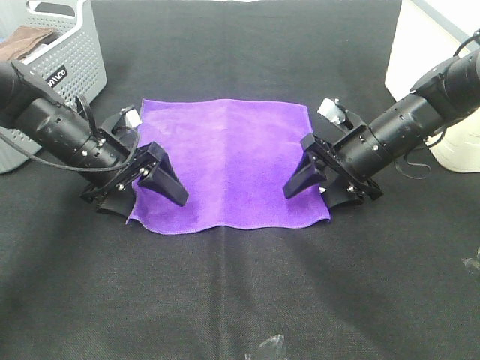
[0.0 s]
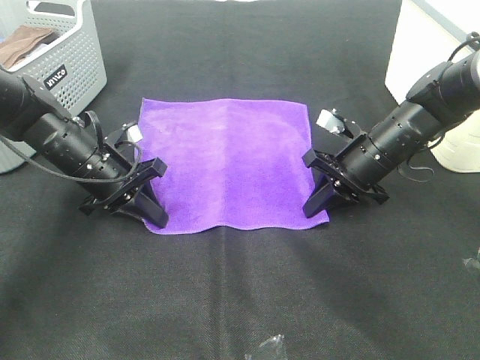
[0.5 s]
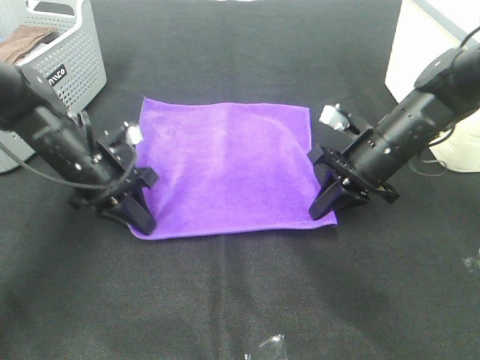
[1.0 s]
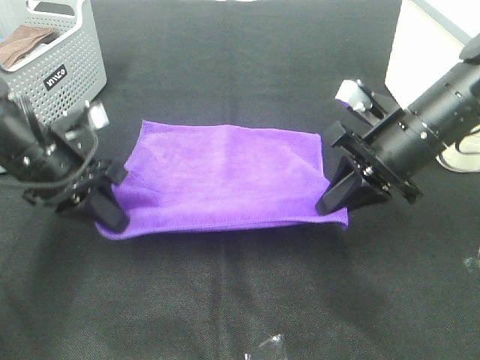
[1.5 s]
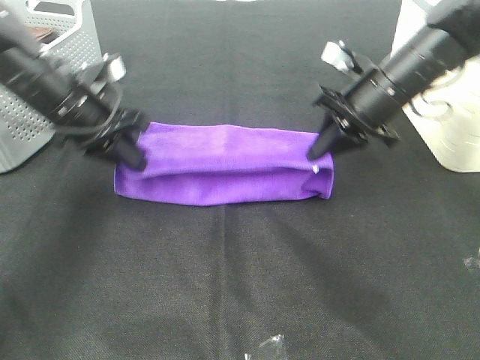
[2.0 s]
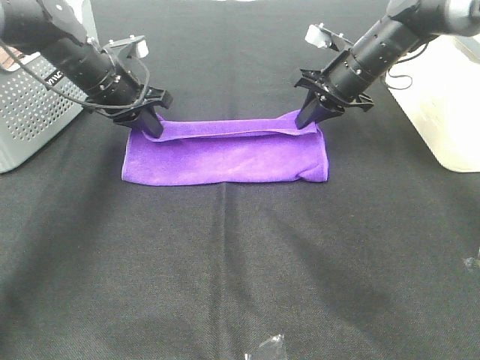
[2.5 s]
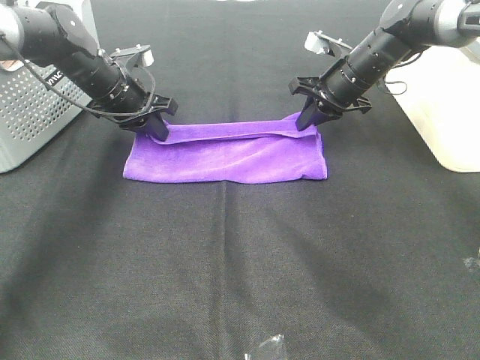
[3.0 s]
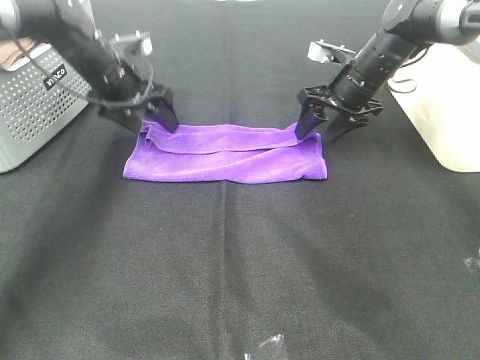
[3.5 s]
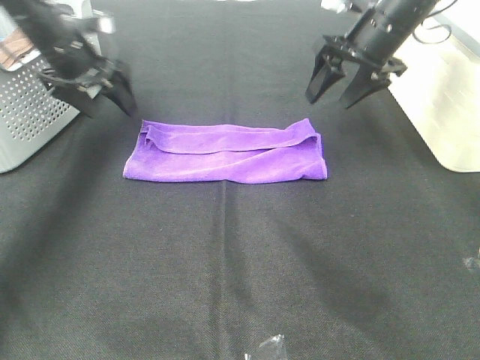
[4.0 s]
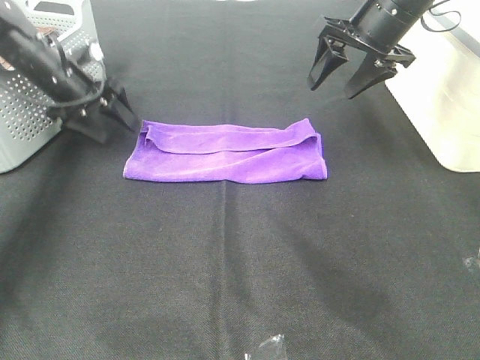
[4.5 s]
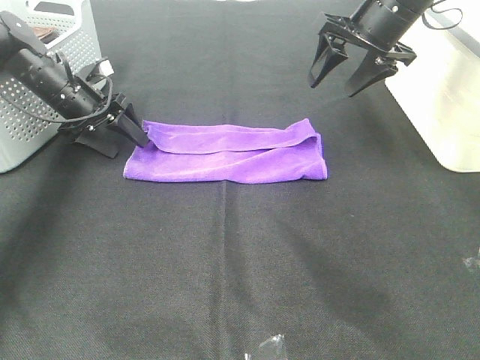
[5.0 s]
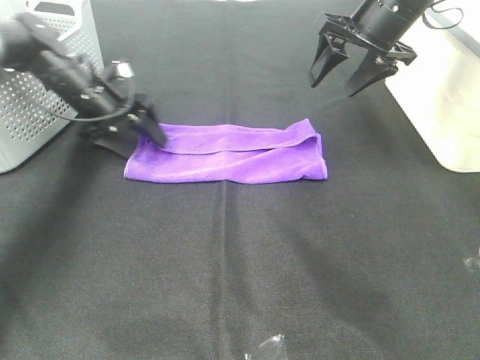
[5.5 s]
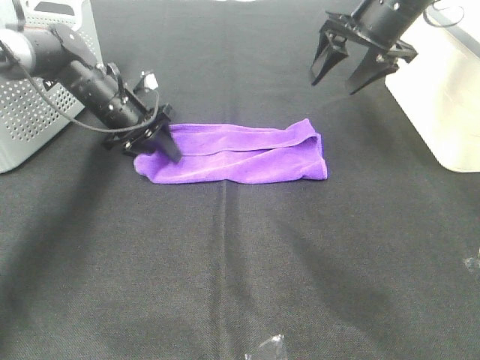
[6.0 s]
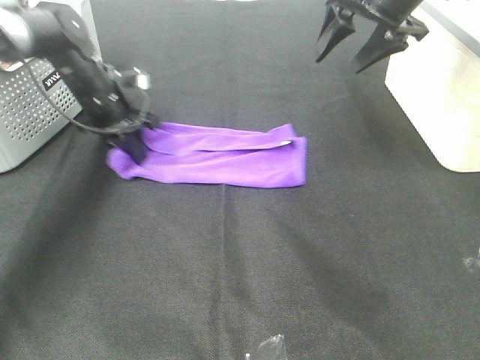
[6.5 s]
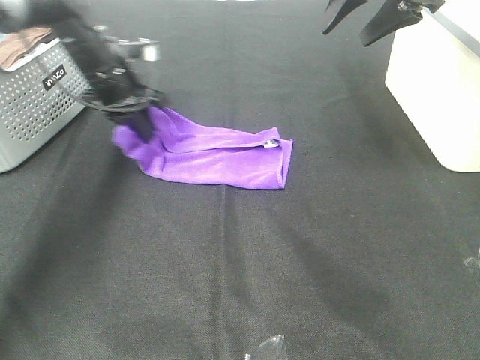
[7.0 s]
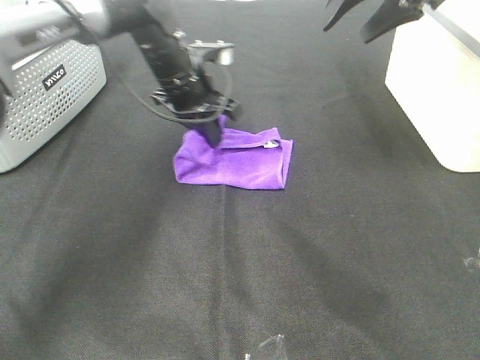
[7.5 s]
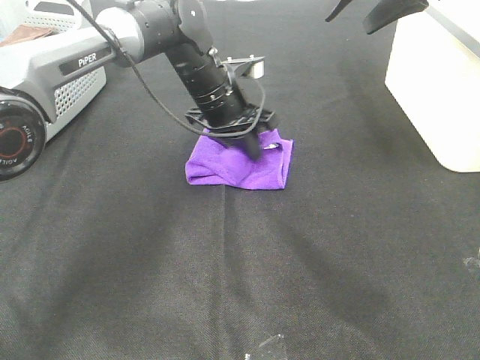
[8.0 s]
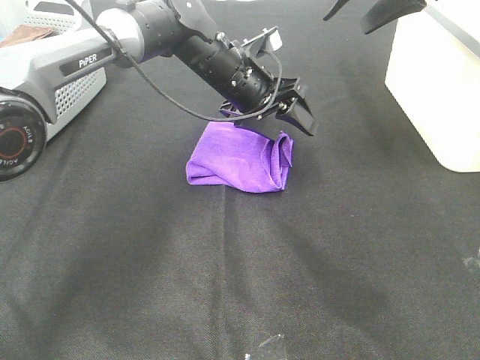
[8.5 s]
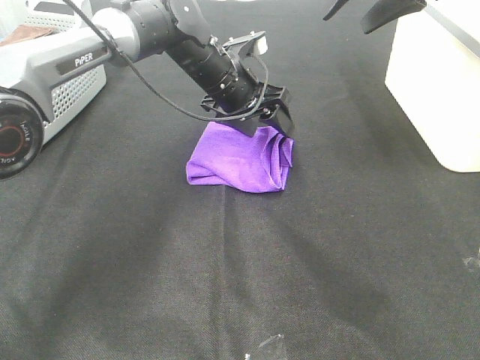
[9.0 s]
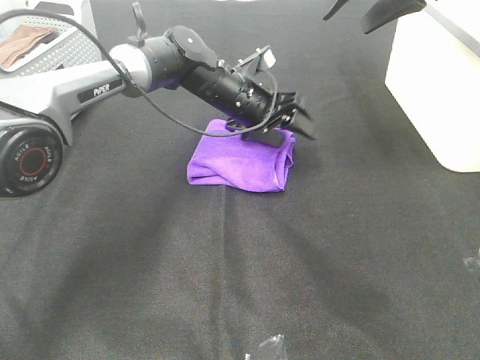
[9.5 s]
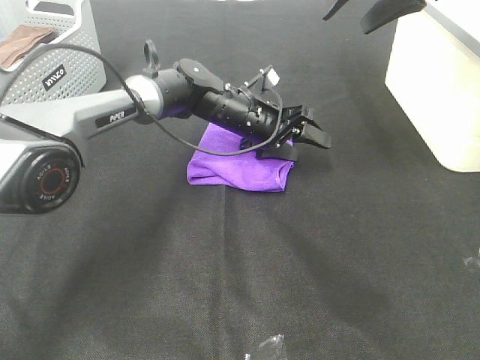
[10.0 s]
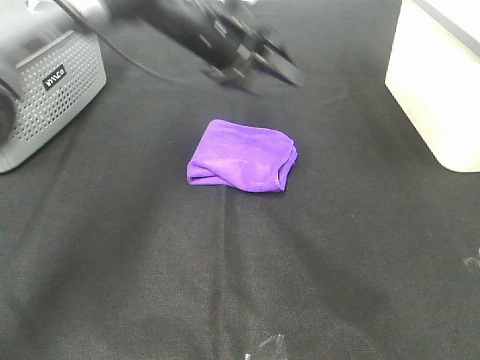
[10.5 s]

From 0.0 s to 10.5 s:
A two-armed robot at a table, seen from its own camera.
Task of the whole recording: Fold towels.
Step, from 1.0 s to 2.5 s: Left hand: fold the purple towel up.
Step, from 1.0 s to 2.5 s: Right hand: fold the purple towel up.
Step, from 3.0 s to 7.5 s: Left hand: fold the purple towel from left to right.
From 0.0 s to 2.0 s: Both grippers move upward, roughly 10 cm. The right gripper goes backward and returns, some 5 cm each way, and closes. Meanwhile the left gripper goes backward and returns, about 5 cm each way, and closes up.
From 2.0 s to 4.0 s: The right gripper goes roughly 10 cm forward and upward, and opens up. The left gripper travels forward and to the left by roughly 10 cm, and opens up.
From 4.0 s to 6.5 s: The right gripper travels upward by approximately 5 cm; the left gripper is displaced downward by about 5 cm, and closes up.
From 6.5 s to 8.5 s: The right gripper shifts about 5 cm upward; the left gripper is displaced to the right by about 20 cm, and opens up.
From 8.5 s to 10.5 s: The right gripper is displaced upward by about 5 cm. Meanwhile the left gripper moves upward and to the left, roughly 10 cm.

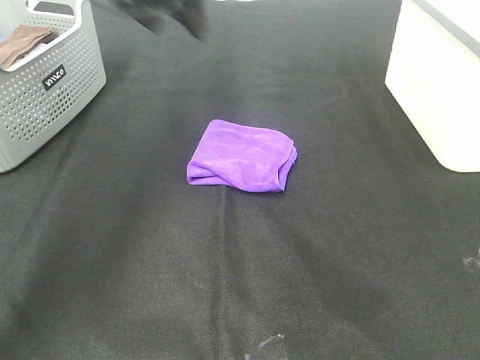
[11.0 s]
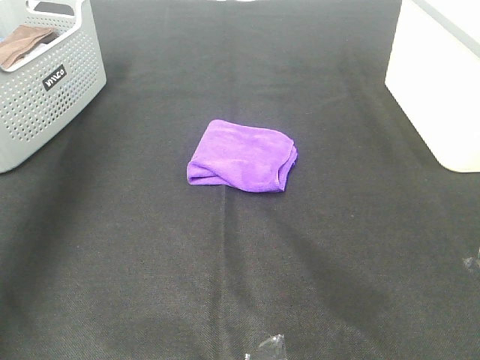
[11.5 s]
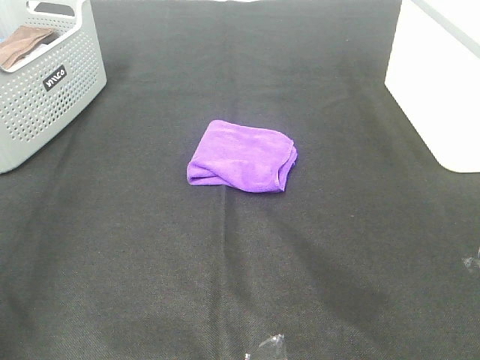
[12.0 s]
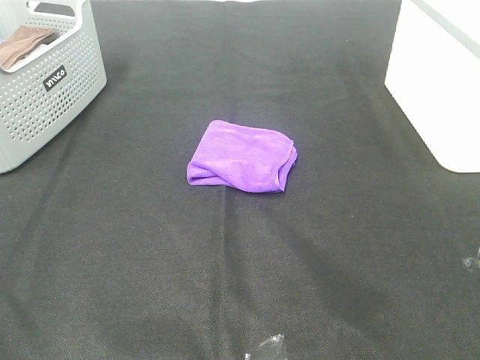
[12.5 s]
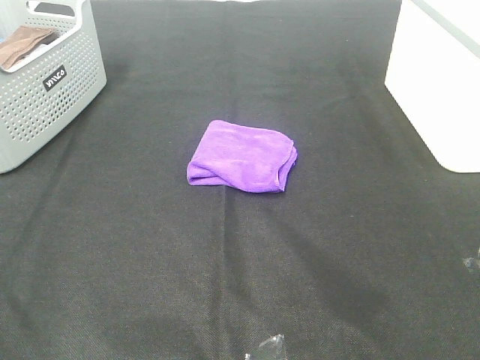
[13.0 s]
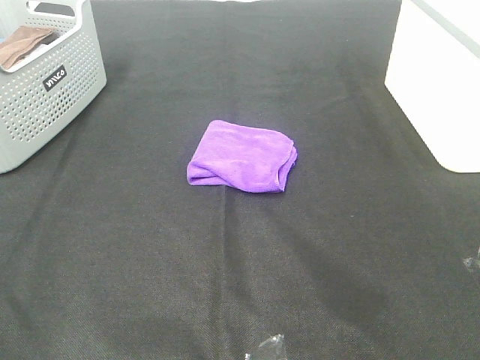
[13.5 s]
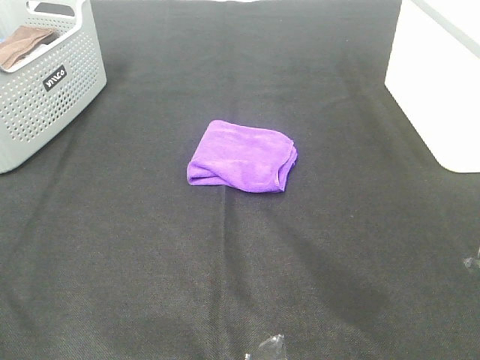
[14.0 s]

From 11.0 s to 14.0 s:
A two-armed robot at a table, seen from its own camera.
Task of the whole recording: Fold towels.
From 11.0 s to 12.5 s: The left gripper travels backward by about 50 cm; the right gripper goes some 35 cm backward and downward.

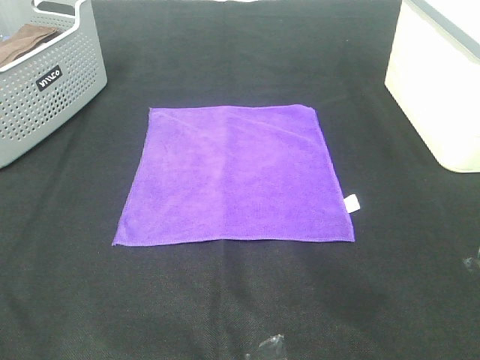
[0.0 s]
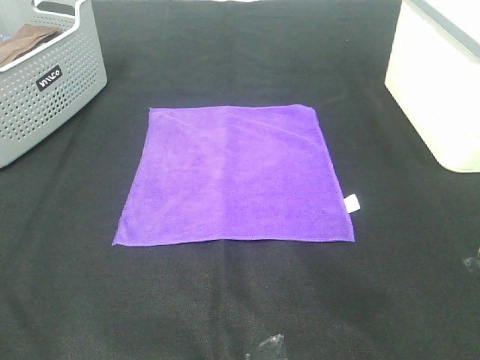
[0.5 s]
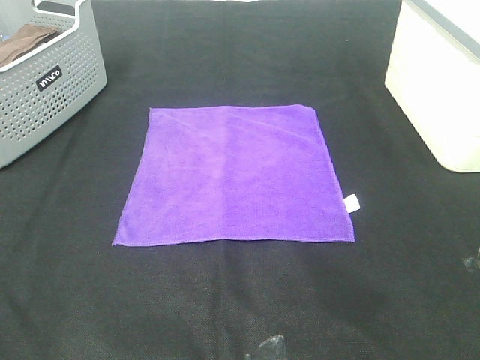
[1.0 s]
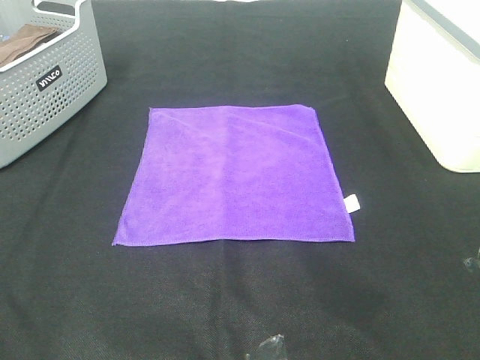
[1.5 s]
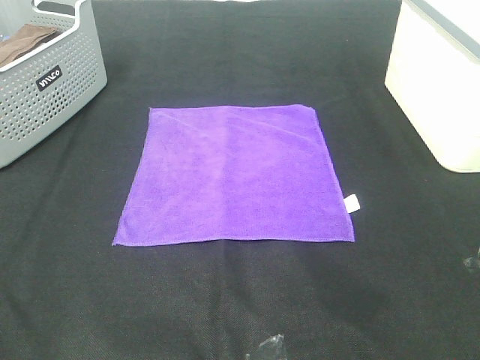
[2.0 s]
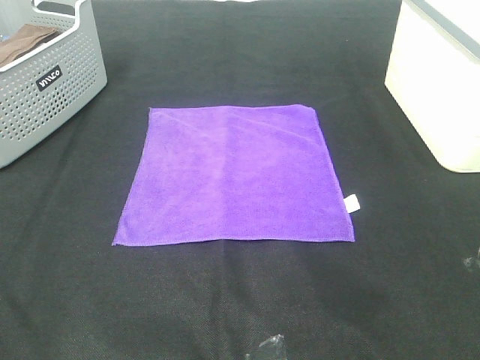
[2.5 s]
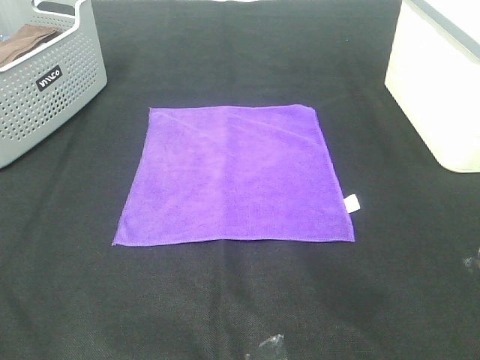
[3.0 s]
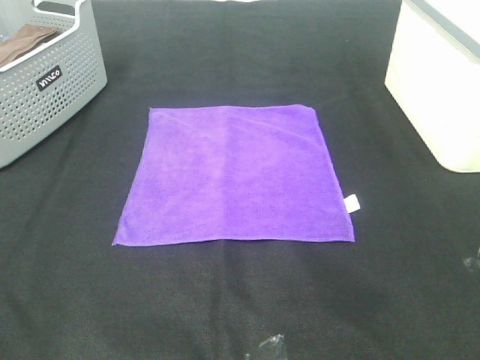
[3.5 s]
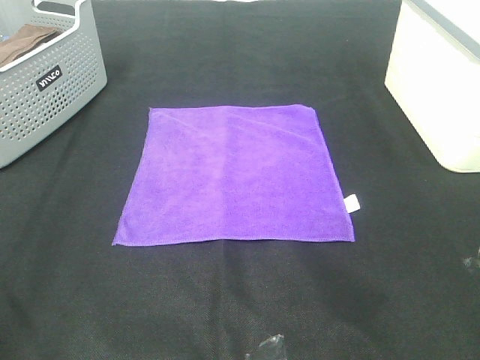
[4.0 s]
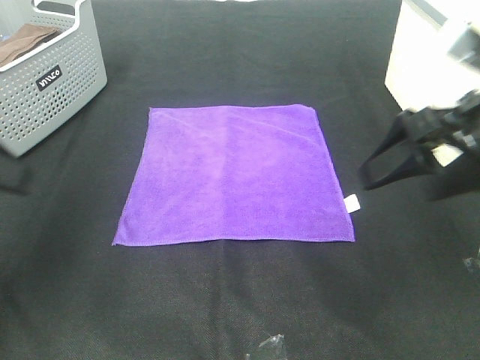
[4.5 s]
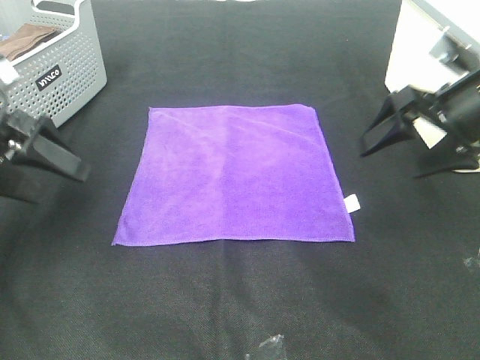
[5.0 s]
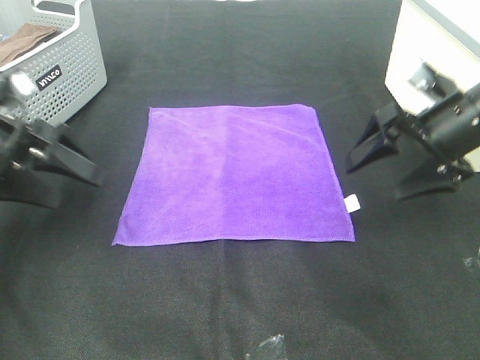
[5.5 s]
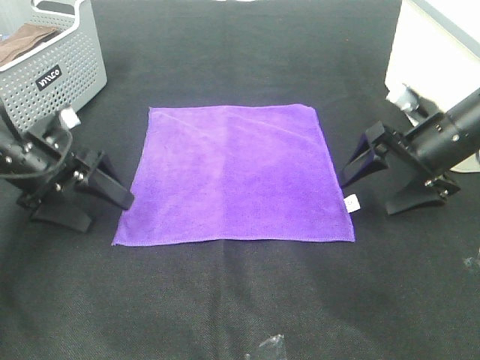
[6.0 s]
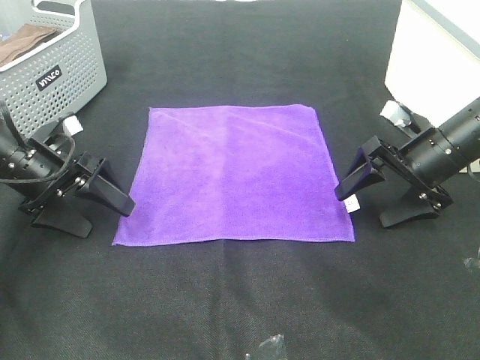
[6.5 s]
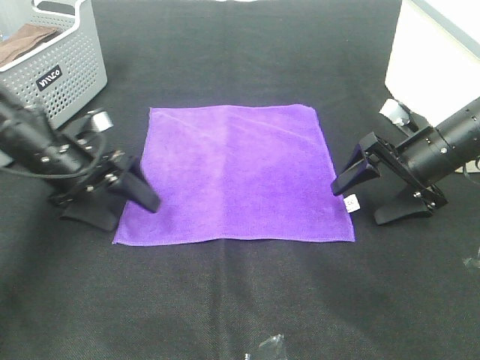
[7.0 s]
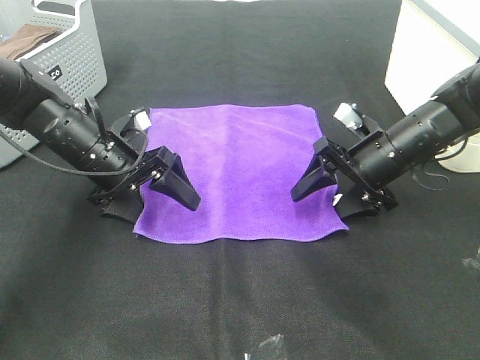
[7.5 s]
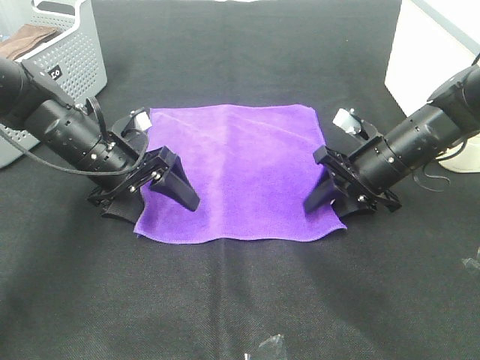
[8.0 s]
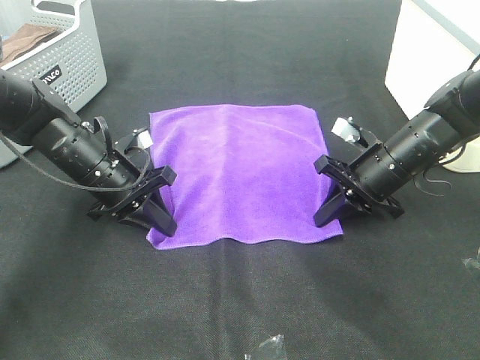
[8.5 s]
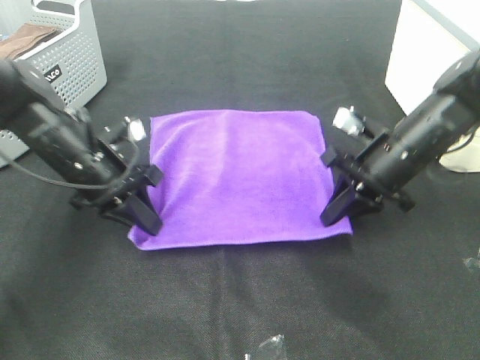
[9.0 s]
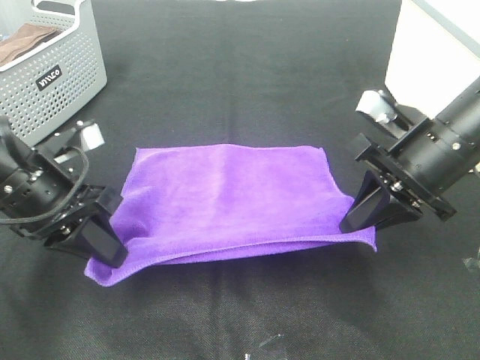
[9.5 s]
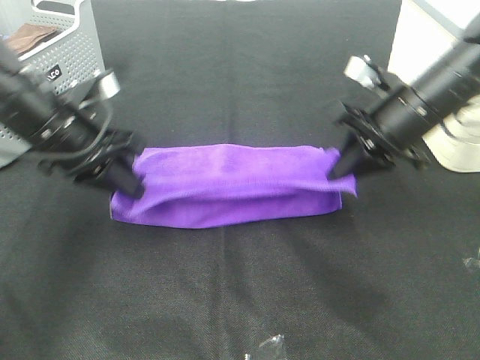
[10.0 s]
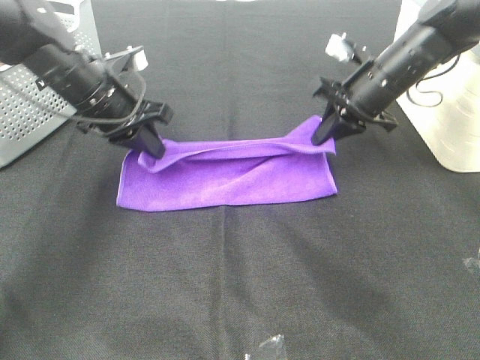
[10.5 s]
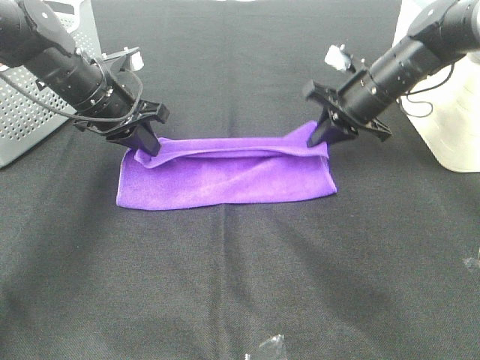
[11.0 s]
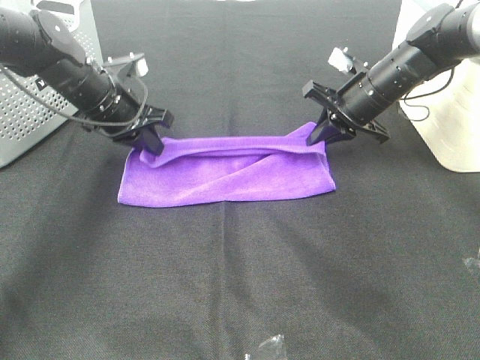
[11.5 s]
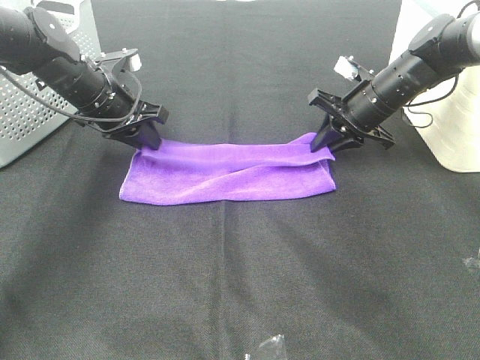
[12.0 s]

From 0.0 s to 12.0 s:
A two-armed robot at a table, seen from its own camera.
Task of the whole recording: Fold towels.
Step, from 0.0 s to 8.0 s: Left hand: grab the bottom left corner of purple towel.
Step, from 0.0 s to 8.0 s: Right hand: grab the bottom right corner of purple towel.
Step, from 8.5 s to 11.5 s: Left hand: fold the purple towel up.
Step, from 8.5 s to 11.5 s: Right hand: fold the purple towel up.
From 0.0 s to 2.0 s: Neither gripper changes place.
From 4.0 s to 6.0 s: Both grippers move forward and downward, about 30 cm.
From 6.0 s to 8.0 s: The left gripper moves to the right, approximately 10 cm; the right gripper heads to the left and downward, covering some 10 cm, and closes its fingers.
From 8.0 s to 10.0 s: Both grippers move upward, approximately 10 cm. The right gripper closes up, while the left gripper goes backward and returns, approximately 10 cm each way, and closes its fingers.
From 10.0 s to 12.0 s: The right gripper goes approximately 10 cm forward and downward. The left gripper heads forward, covering roughly 10 cm, and opens its fingers.
